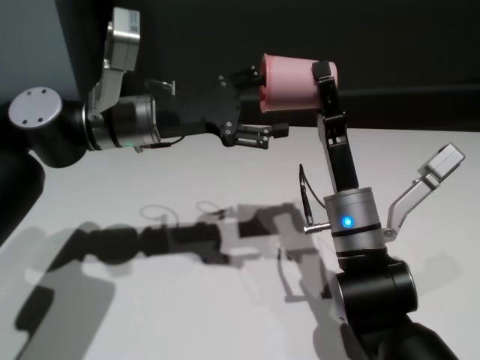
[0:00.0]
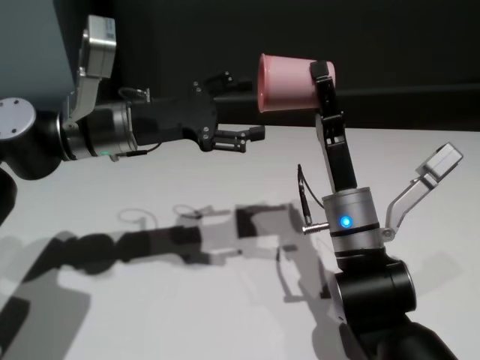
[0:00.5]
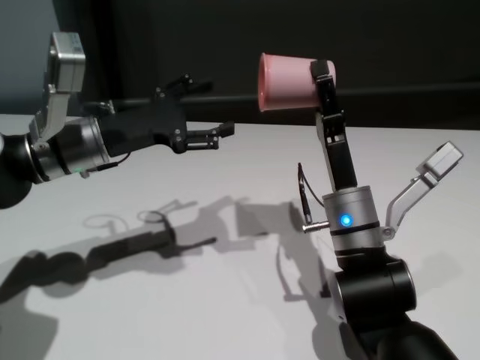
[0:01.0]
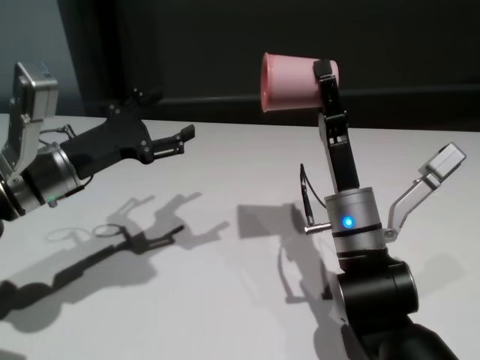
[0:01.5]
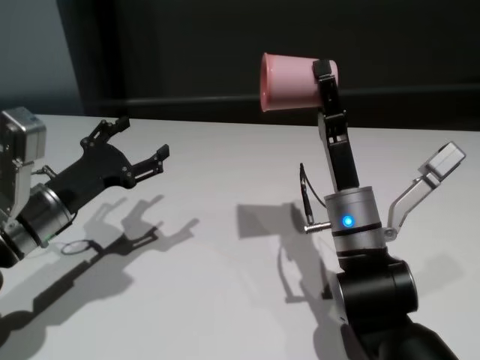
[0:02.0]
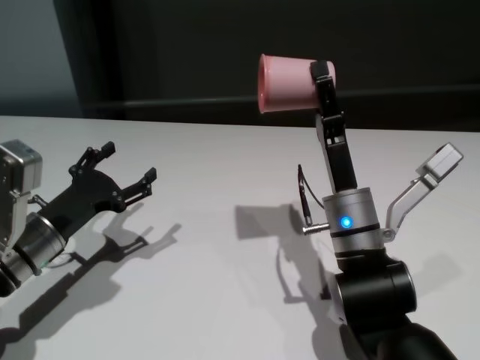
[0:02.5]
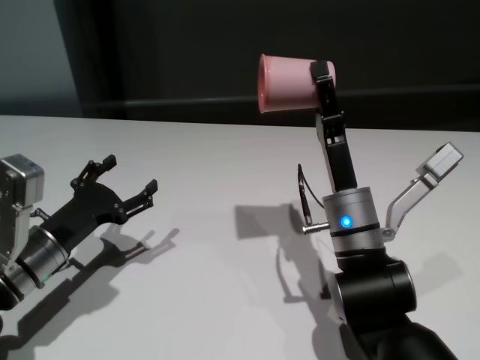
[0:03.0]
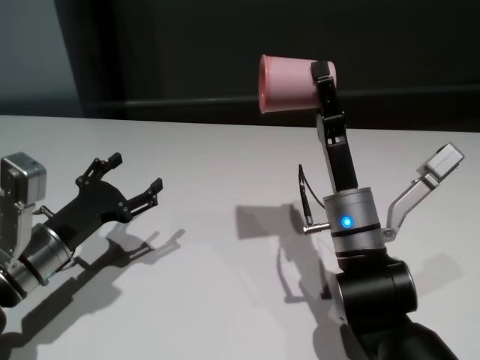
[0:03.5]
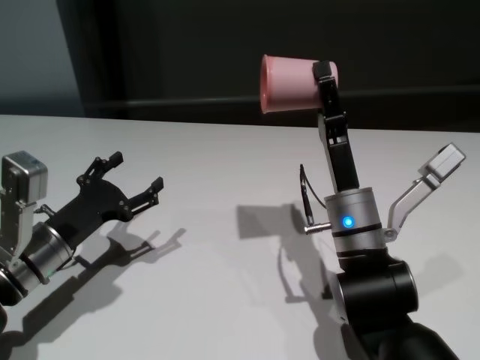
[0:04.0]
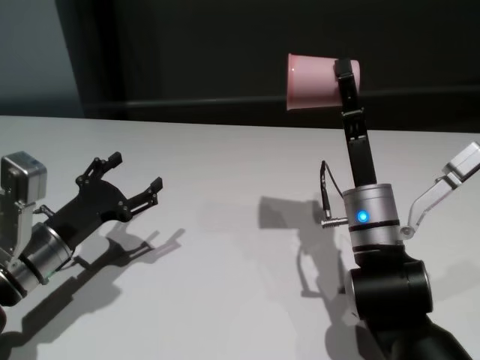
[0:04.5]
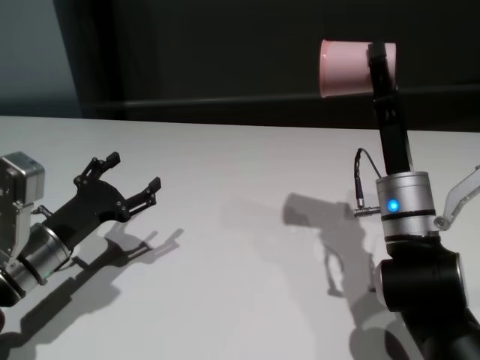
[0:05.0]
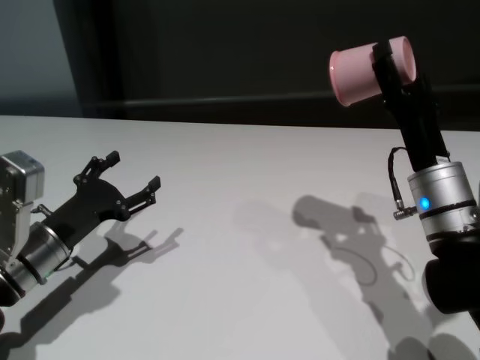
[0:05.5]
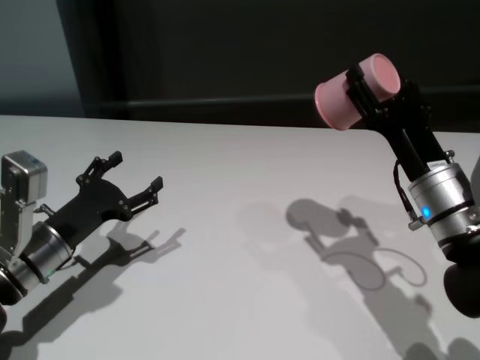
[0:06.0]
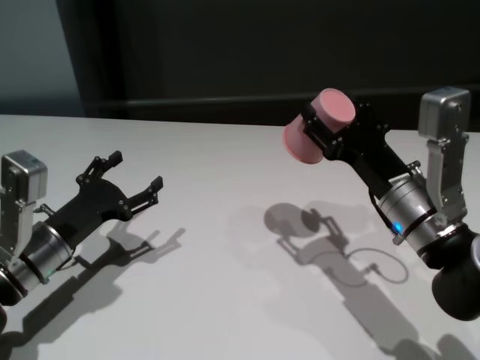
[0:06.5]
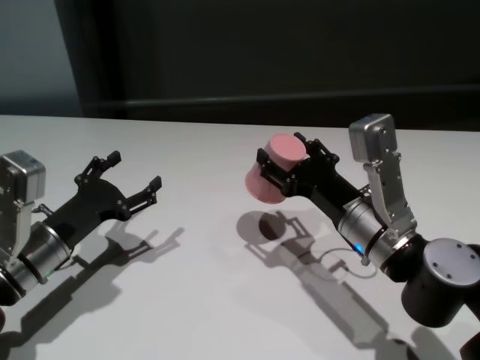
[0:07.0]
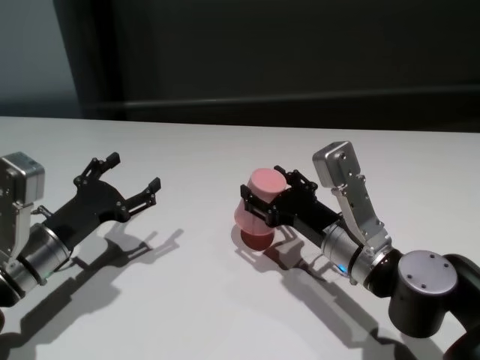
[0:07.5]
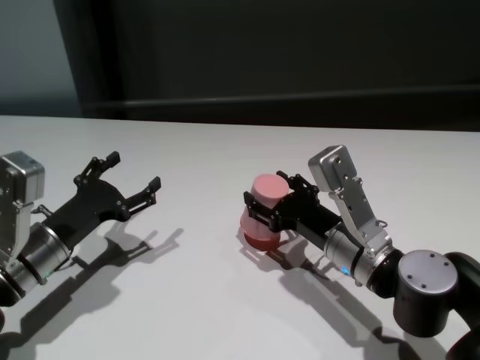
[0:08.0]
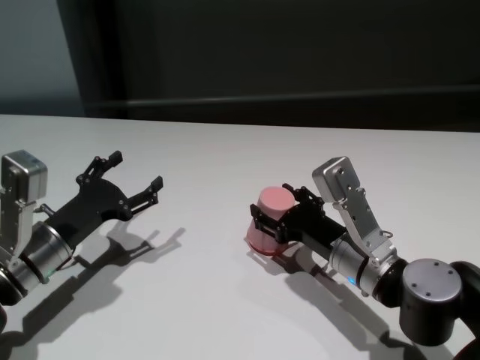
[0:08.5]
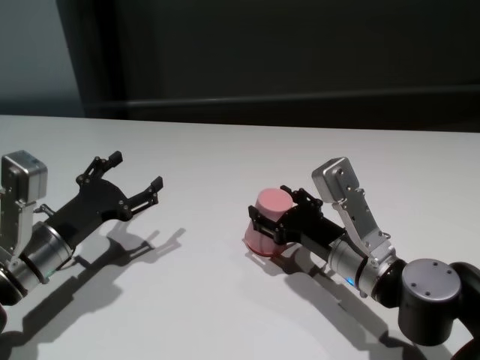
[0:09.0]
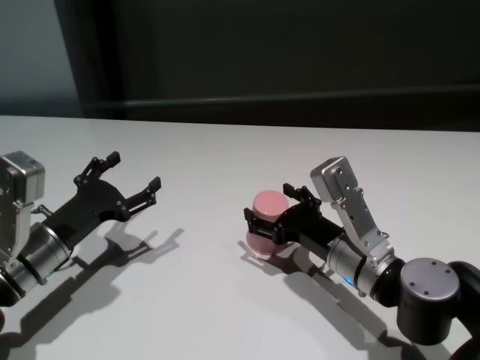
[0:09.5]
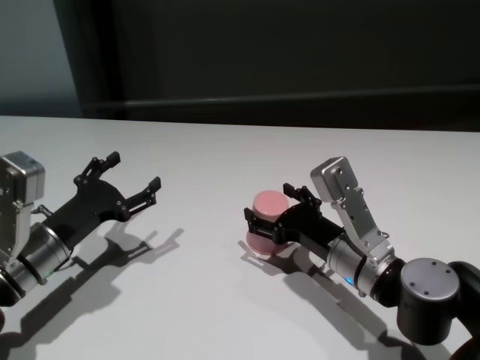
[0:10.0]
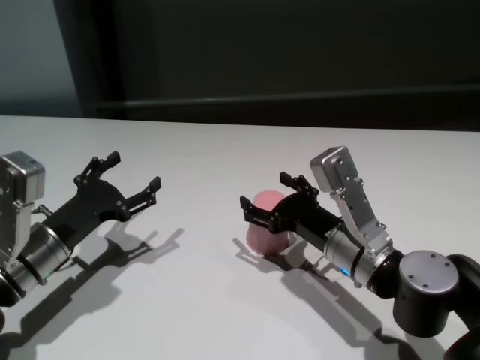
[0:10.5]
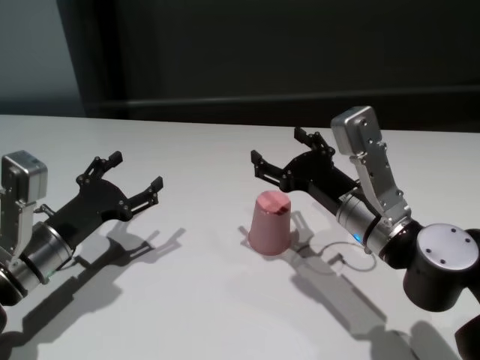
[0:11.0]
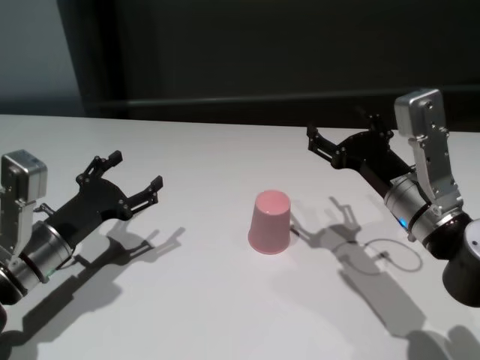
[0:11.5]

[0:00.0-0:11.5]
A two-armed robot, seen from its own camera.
Task of the whole recording: On the white table pick up the cup with one hand and transfer it to the other hand before turning it over.
Step, 0:01.0 to 0:10.5: Place the cup on the table with right gripper.
